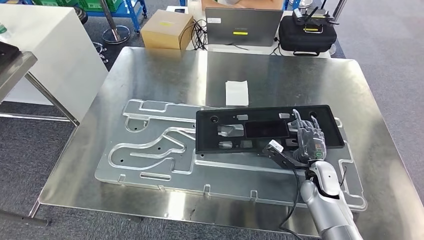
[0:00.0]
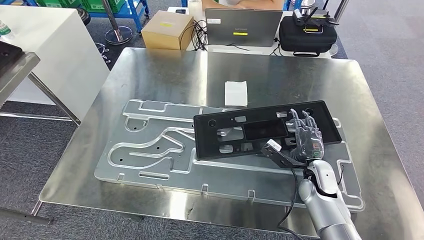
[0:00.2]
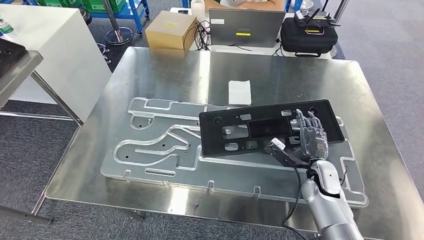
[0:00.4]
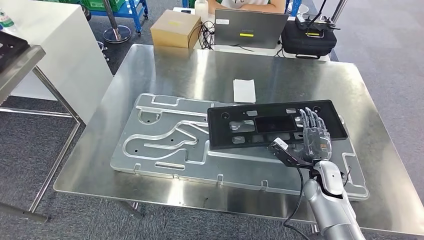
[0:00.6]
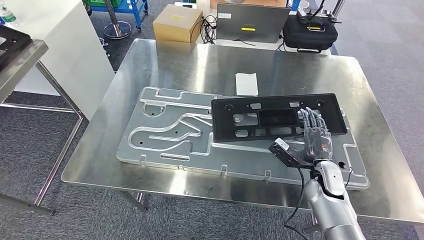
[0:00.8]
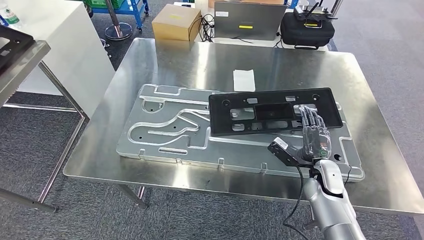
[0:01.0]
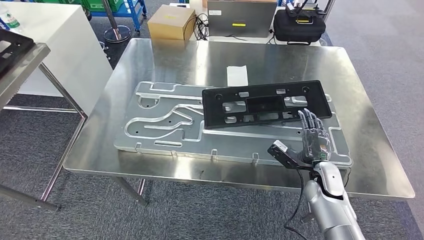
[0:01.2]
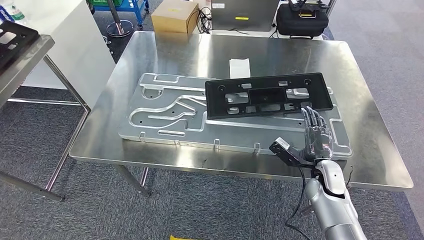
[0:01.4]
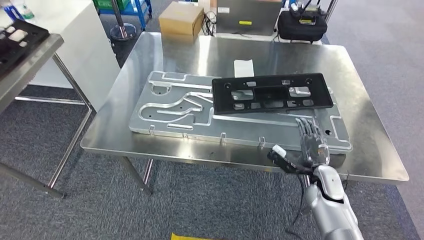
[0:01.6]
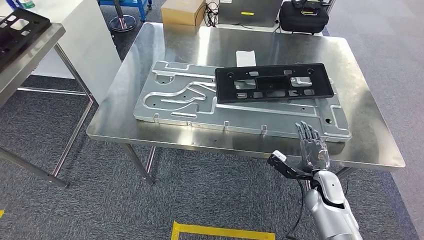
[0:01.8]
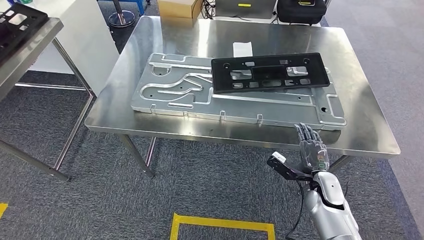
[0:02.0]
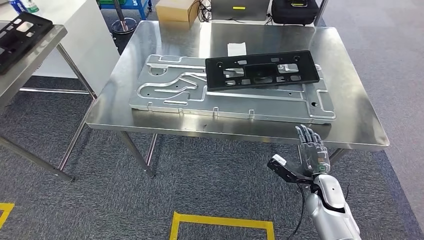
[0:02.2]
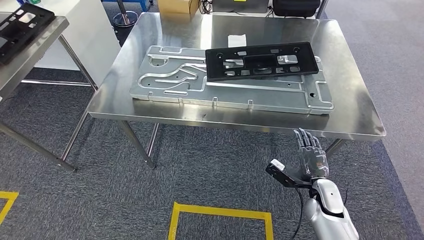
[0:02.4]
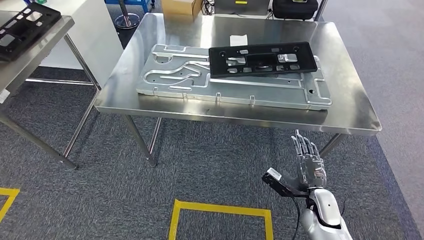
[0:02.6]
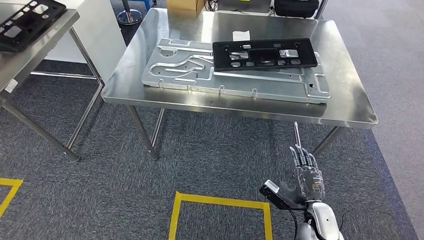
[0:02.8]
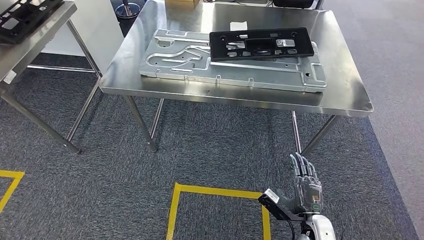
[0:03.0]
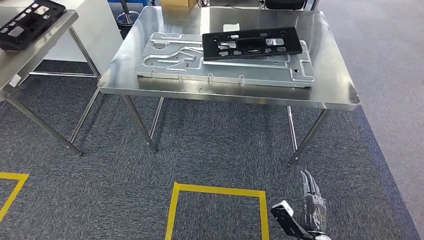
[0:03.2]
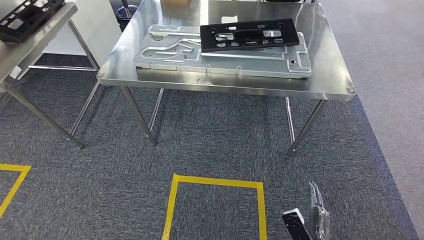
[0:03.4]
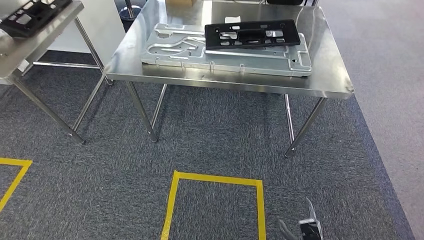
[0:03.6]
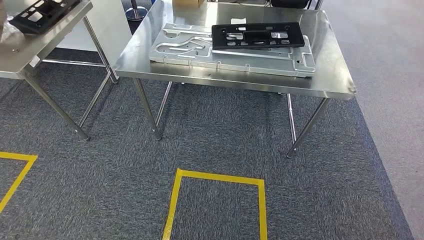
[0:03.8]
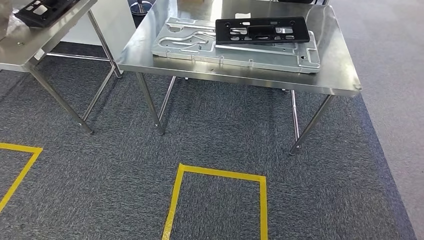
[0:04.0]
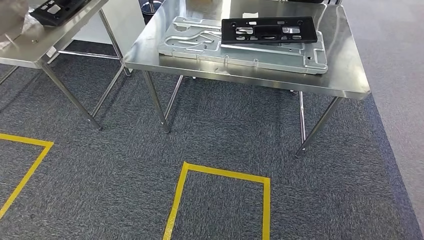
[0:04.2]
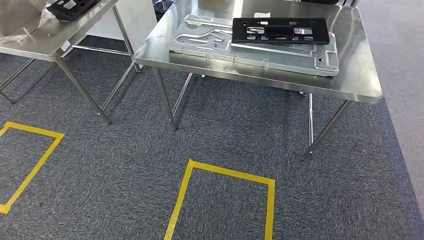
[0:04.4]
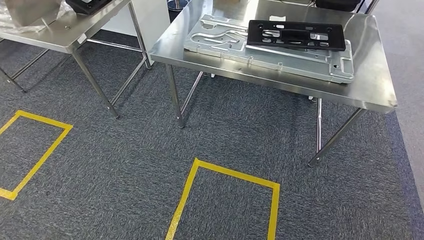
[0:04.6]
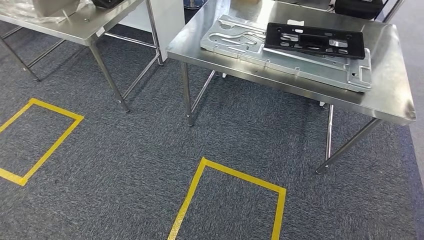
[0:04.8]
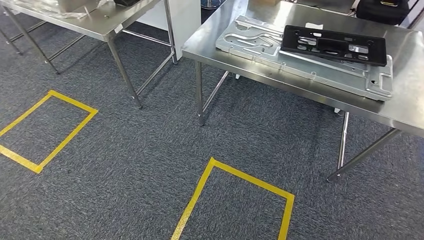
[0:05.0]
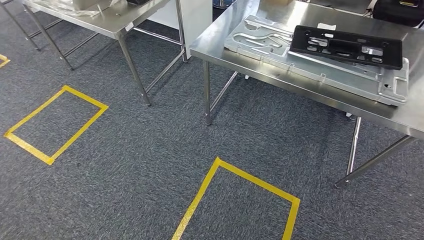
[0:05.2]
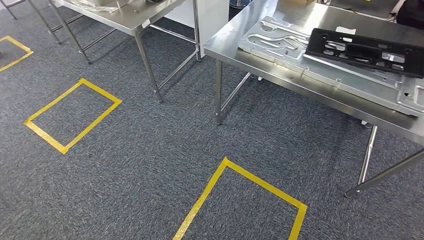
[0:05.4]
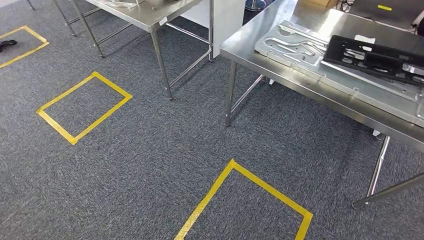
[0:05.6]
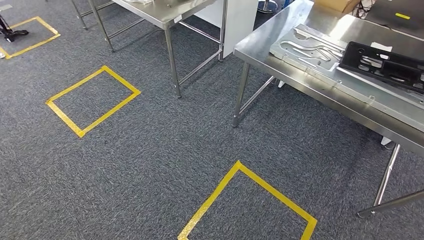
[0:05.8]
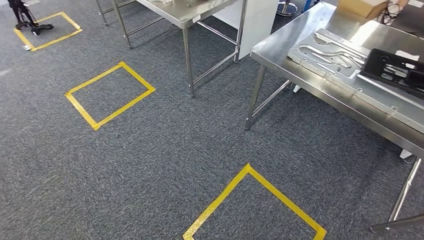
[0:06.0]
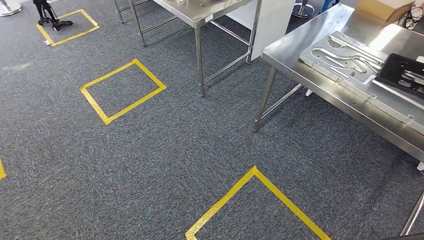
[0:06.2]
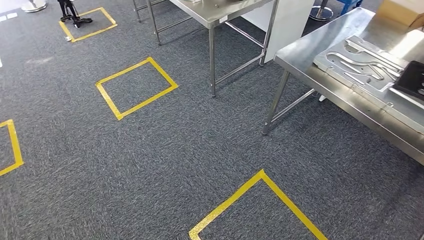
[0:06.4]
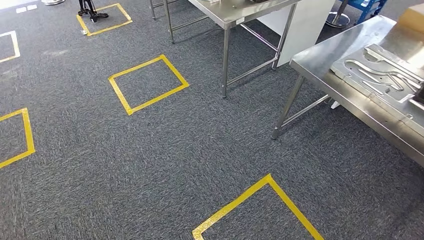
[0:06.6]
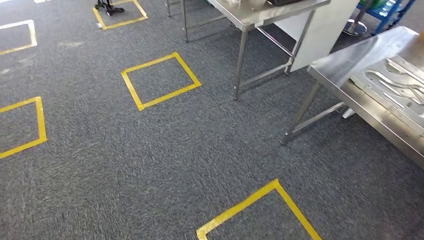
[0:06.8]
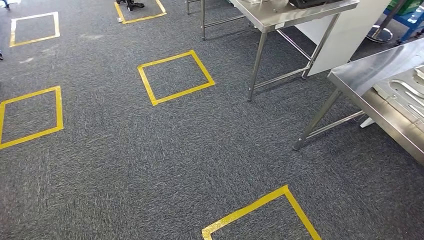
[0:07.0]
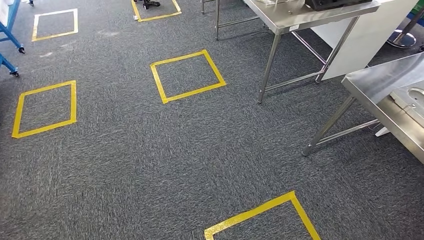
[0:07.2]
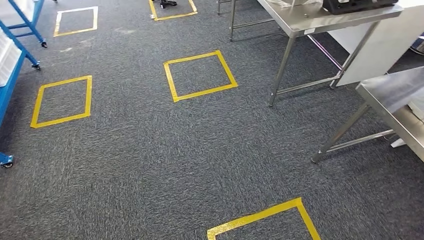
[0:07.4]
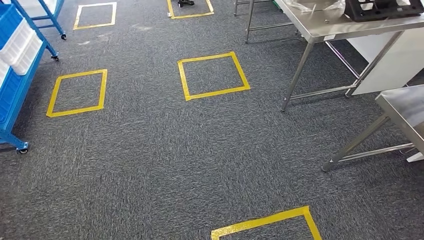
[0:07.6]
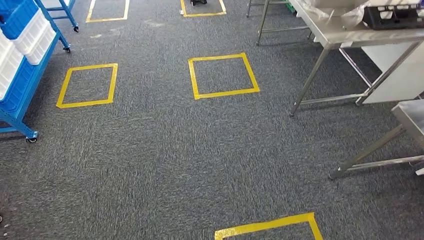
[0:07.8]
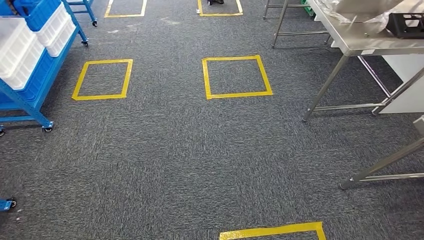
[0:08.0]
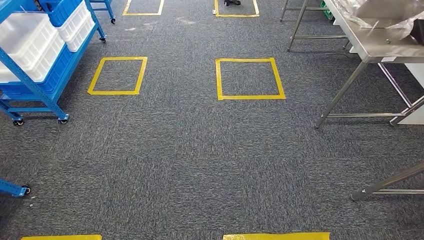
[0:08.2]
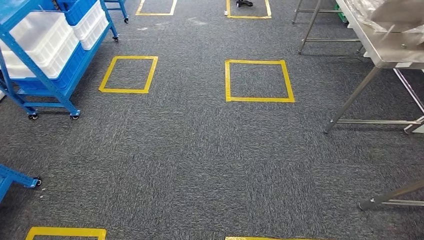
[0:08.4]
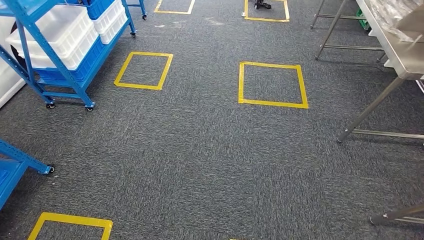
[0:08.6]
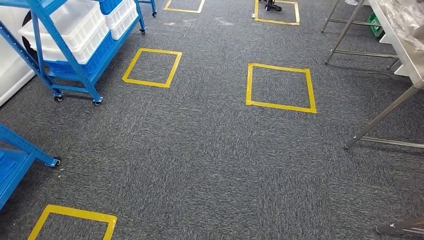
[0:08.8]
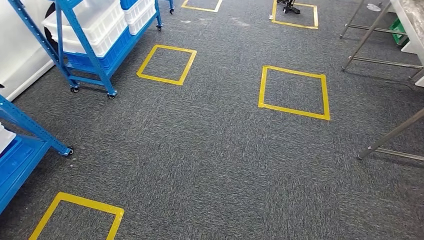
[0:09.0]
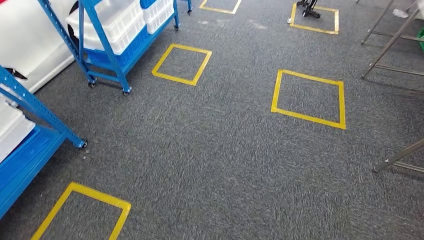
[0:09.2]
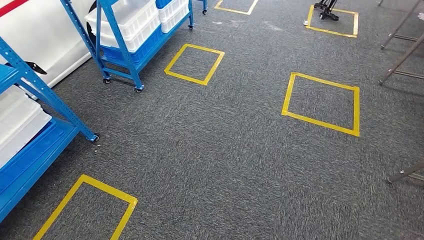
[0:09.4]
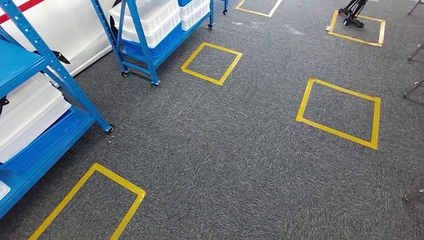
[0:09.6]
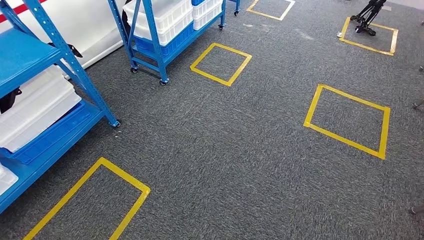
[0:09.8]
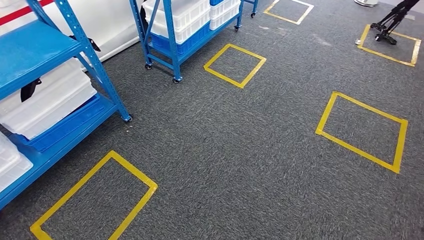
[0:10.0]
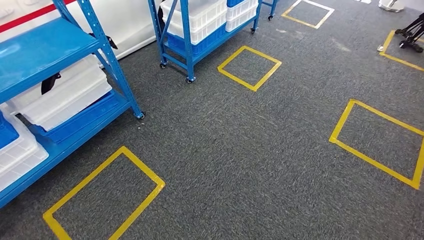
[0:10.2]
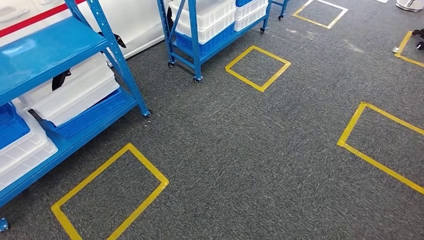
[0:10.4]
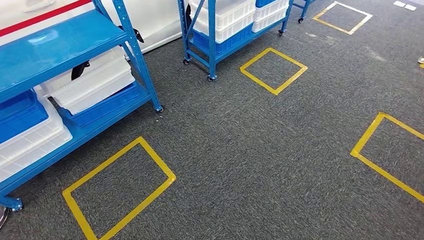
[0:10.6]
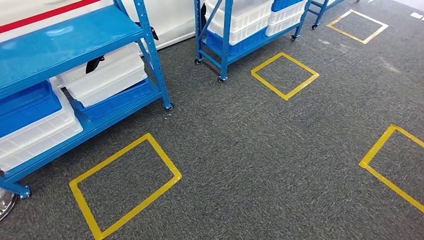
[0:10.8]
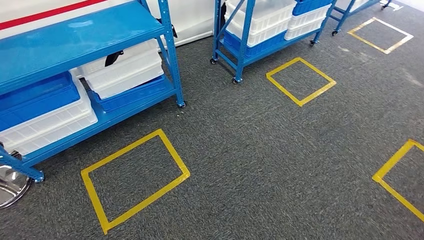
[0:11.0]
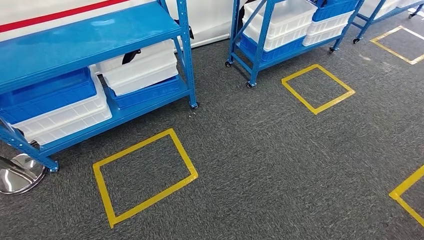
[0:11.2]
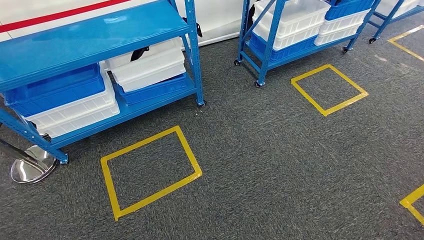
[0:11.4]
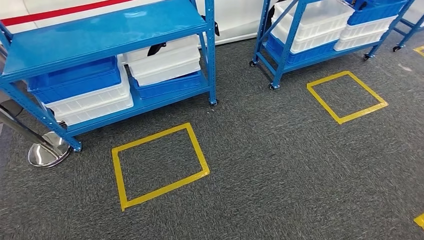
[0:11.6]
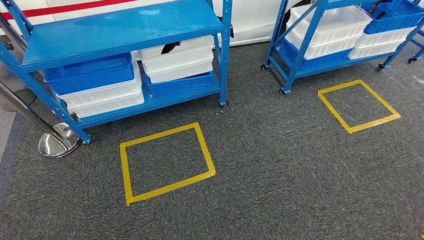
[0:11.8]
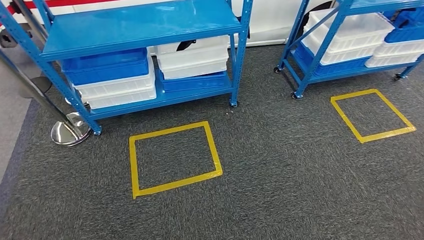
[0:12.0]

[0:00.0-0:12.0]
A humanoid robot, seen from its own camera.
Step, 0:00.0 to 0:04.4: Insert the large material into the corresponding slot on the workbench.

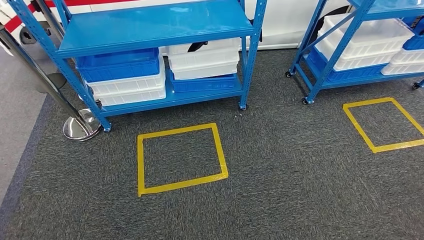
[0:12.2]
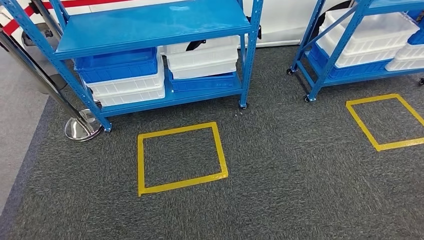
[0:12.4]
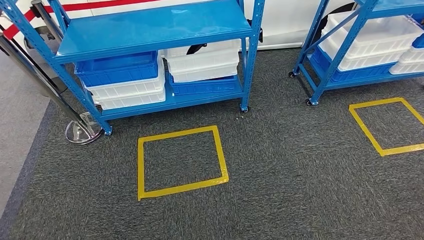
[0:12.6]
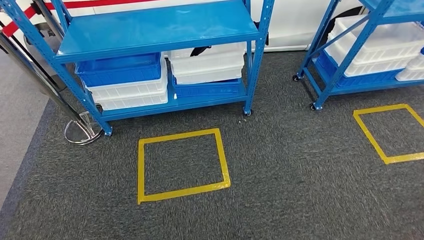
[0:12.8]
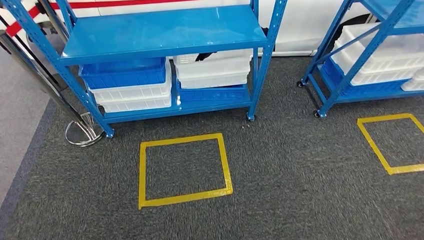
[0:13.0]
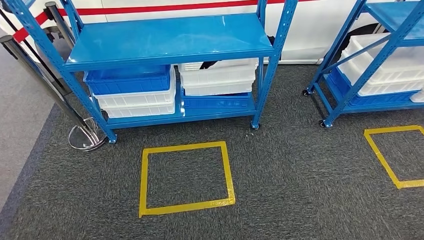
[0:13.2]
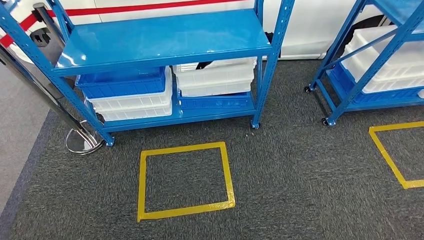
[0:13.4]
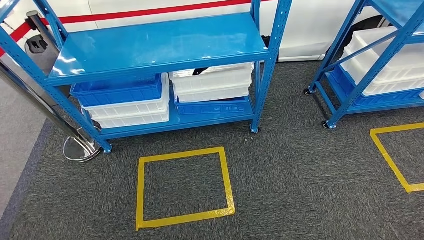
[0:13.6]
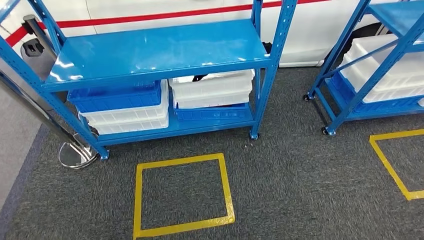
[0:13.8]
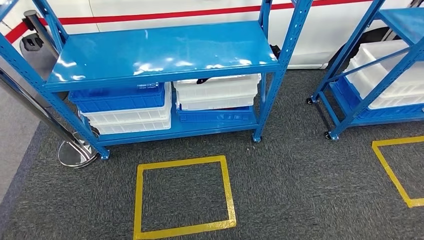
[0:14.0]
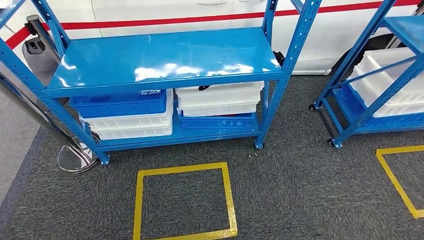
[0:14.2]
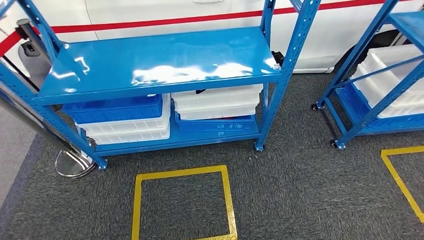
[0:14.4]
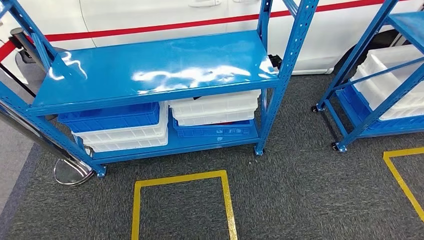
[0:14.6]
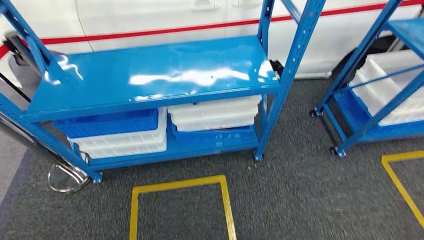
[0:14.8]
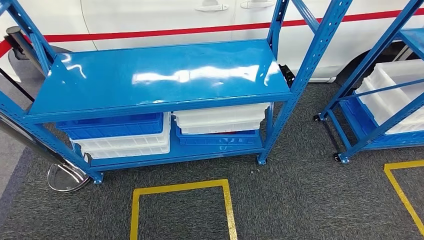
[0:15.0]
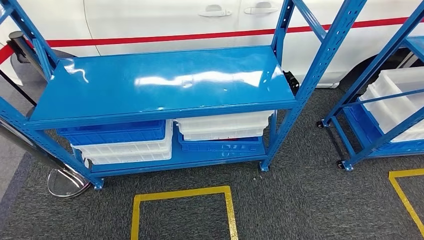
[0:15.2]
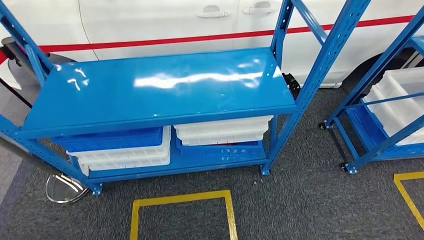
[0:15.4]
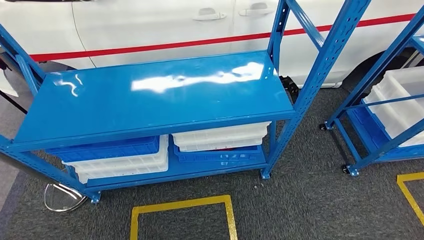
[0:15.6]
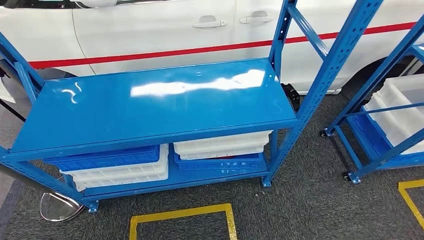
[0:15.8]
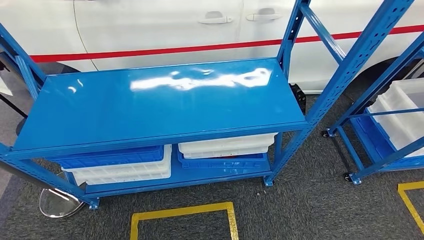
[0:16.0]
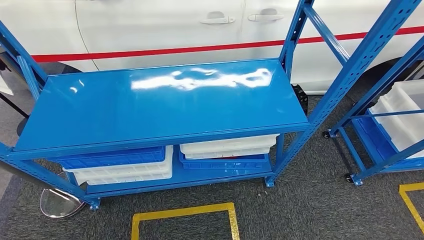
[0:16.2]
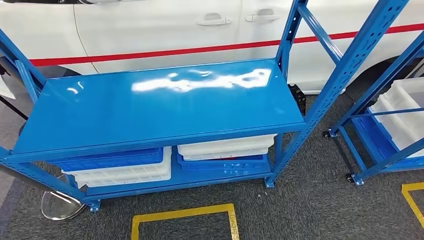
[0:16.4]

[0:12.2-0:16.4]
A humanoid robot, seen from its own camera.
Step, 0:12.2 to 0:16.2: Move to the initial position of the shelf.
